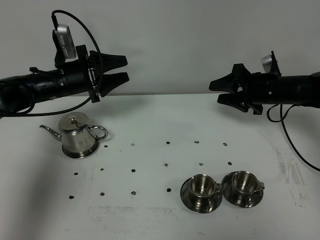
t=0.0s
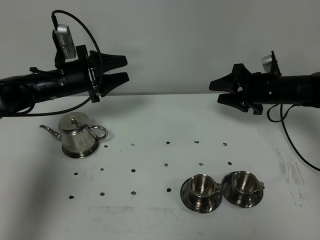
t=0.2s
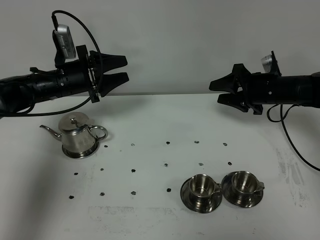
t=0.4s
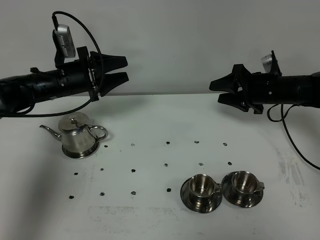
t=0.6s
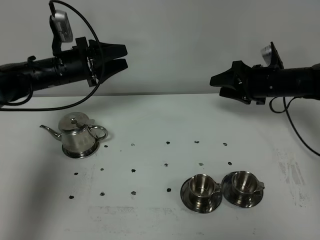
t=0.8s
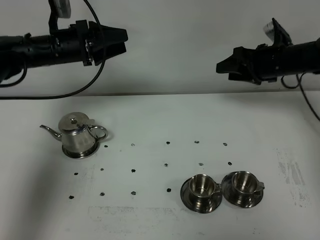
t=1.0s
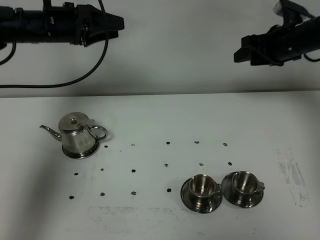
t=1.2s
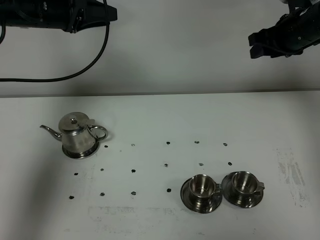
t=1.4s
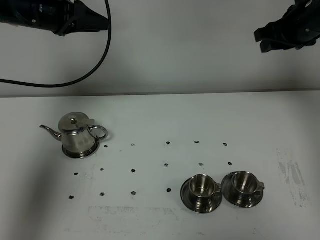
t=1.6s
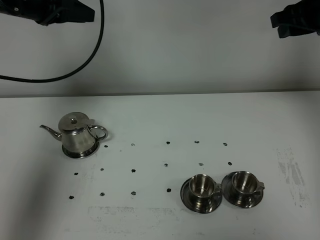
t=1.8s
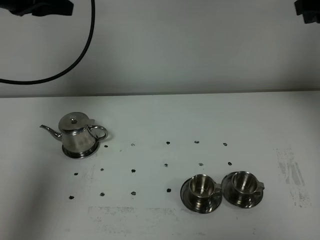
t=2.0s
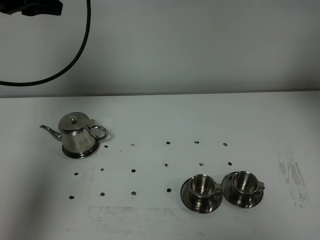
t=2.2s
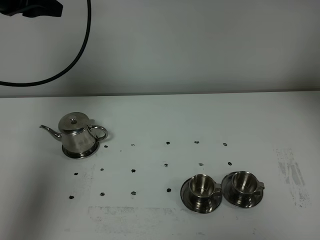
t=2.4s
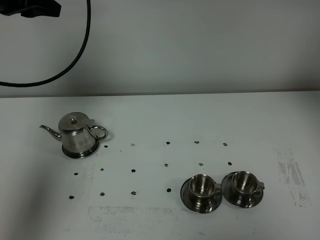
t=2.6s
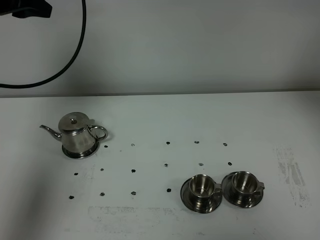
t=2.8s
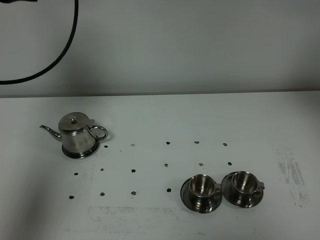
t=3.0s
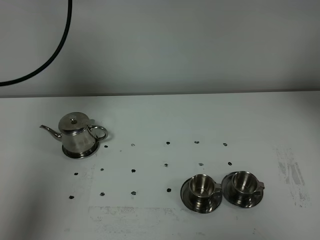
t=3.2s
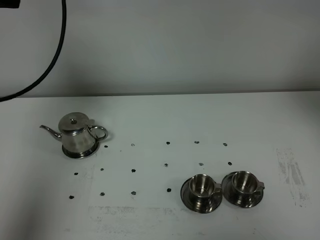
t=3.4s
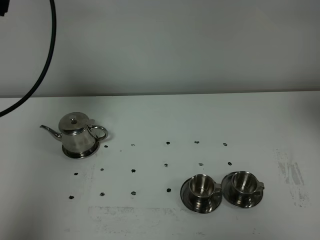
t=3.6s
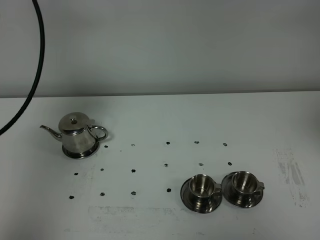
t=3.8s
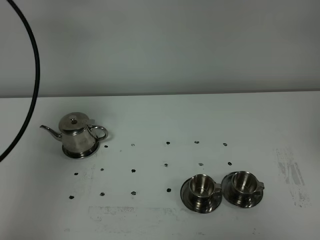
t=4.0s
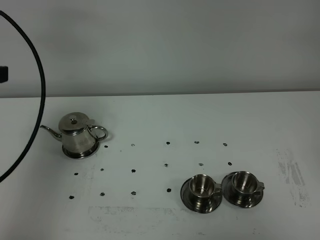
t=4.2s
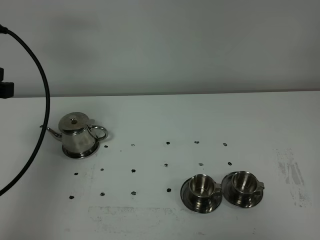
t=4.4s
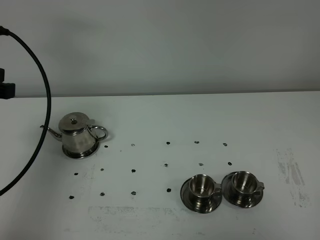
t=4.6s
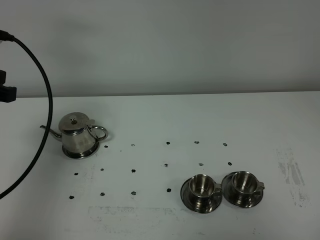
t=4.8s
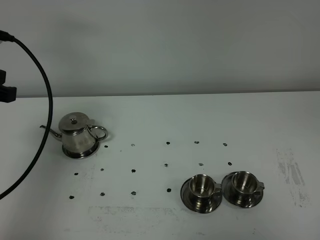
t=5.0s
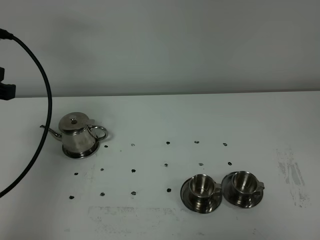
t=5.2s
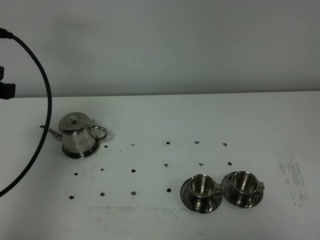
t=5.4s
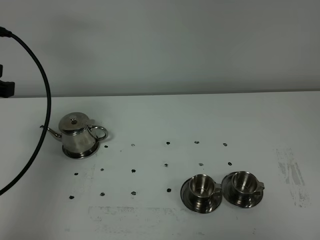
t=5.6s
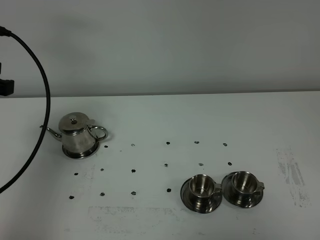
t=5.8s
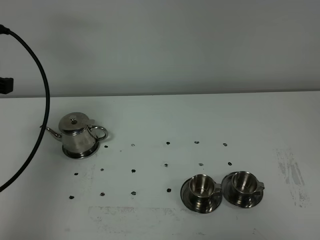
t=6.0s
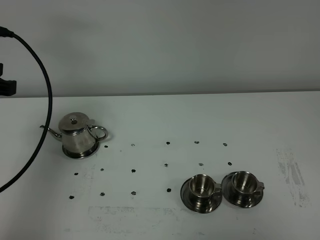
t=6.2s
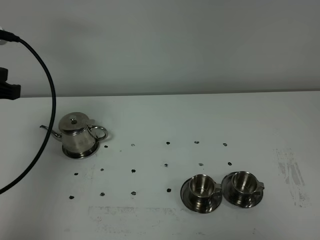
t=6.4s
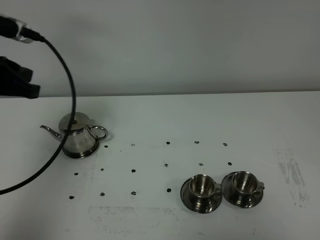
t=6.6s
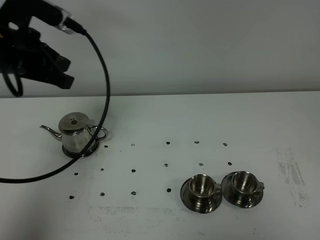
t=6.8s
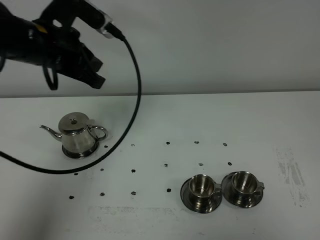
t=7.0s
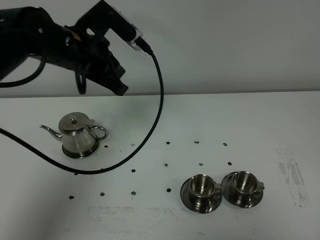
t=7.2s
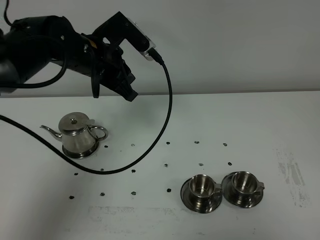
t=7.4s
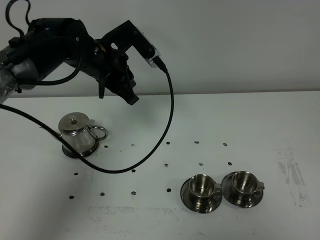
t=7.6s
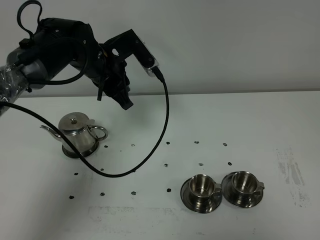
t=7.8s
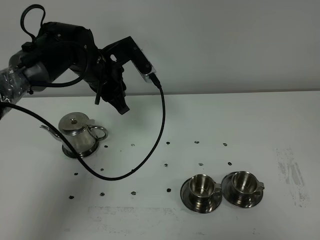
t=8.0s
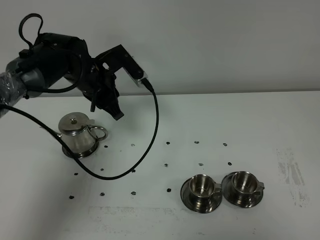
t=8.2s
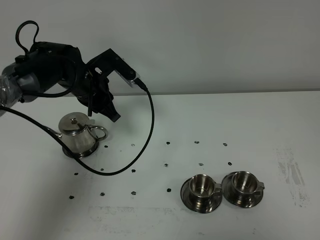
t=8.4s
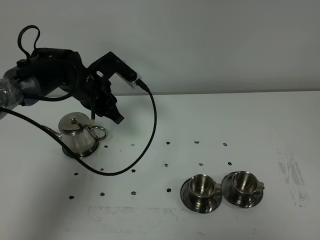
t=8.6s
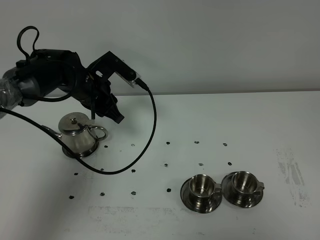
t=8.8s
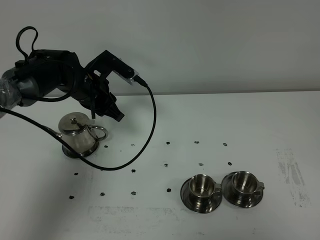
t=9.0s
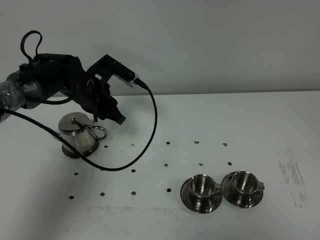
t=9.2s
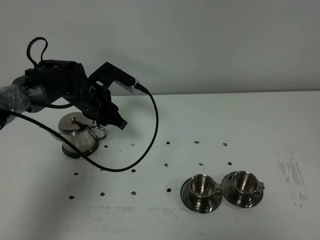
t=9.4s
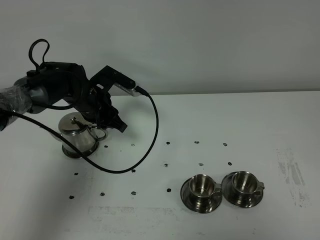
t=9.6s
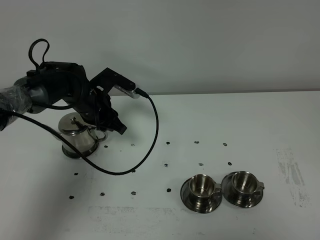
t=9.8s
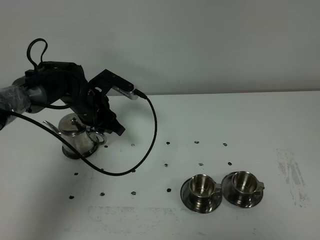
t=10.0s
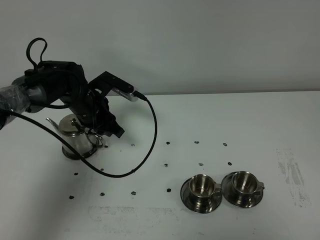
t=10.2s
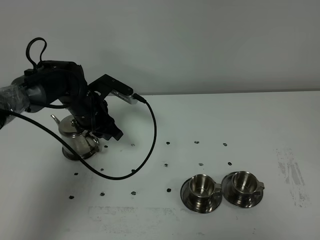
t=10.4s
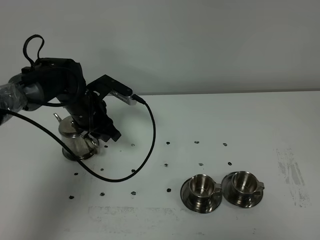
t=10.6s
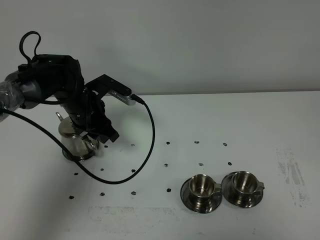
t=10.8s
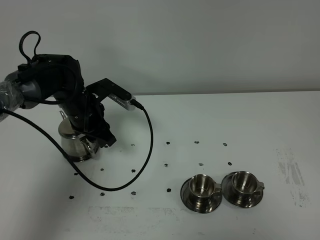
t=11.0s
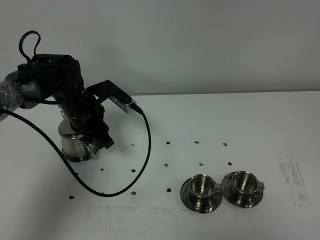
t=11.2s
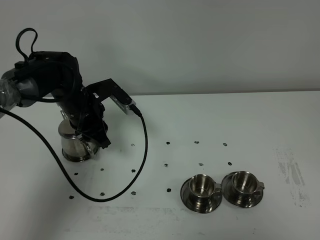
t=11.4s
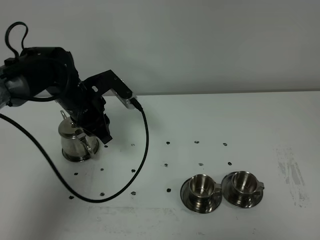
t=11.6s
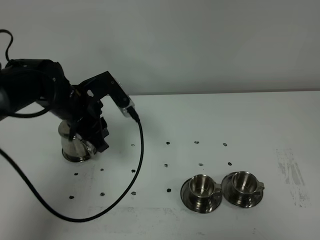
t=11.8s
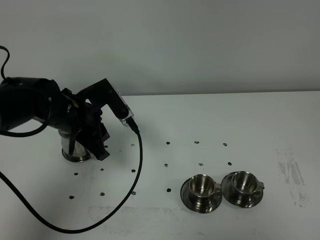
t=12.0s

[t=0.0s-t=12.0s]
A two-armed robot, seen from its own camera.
Task of the whole recording: grasp the stainless steel teapot and pour the tea into the two stainless steel teacups one by one, put the stainless steel teapot back in its original place.
t=0.0s to t=1.6s: Both grippers travel together upward, roughly 15 cm. The left gripper closes its fingers.
t=1.6s to t=3.0s: The right gripper heads backward and upward, covering about 20 cm. The left gripper moves upward and backward, about 15 cm.
t=3.0s to t=4.4s: The right gripper travels backward by some 25 cm, while the left gripper is displaced backward and downward by some 15 cm.
t=6.0s to t=7.6s: The left gripper is displaced to the right, forward and downward by some 25 cm. The right gripper closes up.
t=7.6s to t=9.0s: The left gripper is displaced downward by roughly 5 cm.
t=9.0s to t=10.4s: The grippers stay close to where they were, moving slightly.
t=10.4s to t=12.0s: The left gripper heads backward, covering about 10 cm.

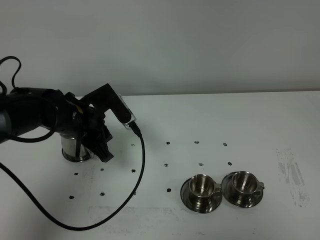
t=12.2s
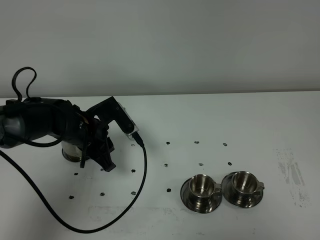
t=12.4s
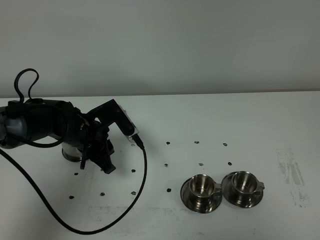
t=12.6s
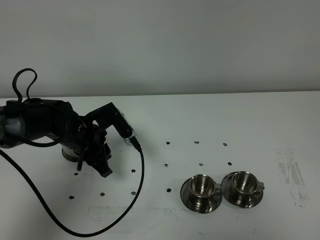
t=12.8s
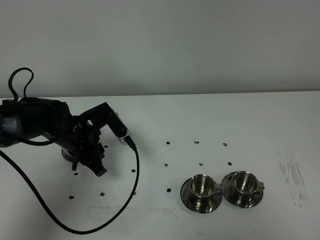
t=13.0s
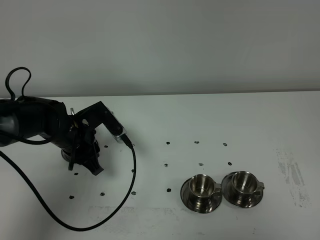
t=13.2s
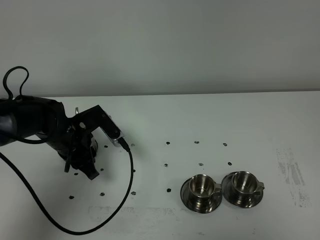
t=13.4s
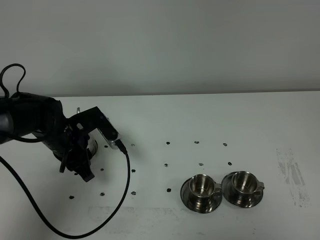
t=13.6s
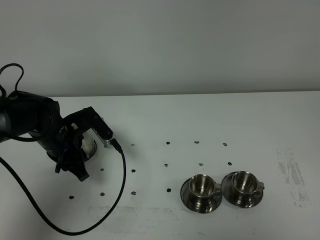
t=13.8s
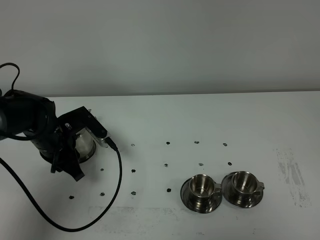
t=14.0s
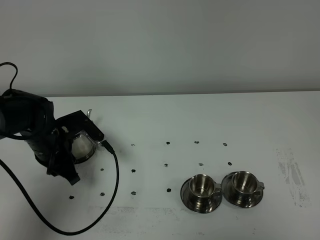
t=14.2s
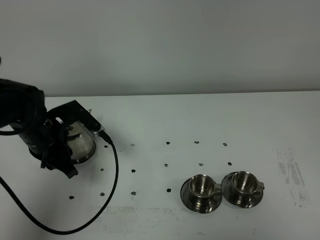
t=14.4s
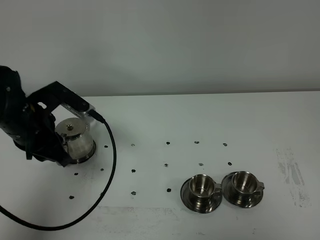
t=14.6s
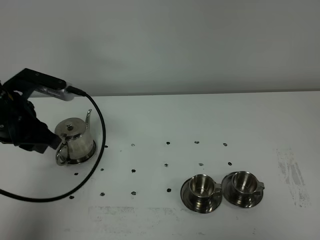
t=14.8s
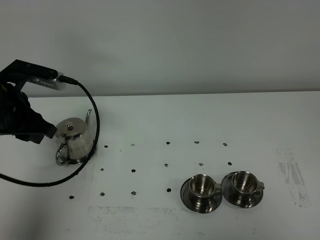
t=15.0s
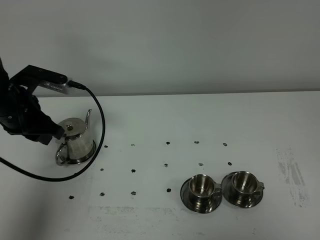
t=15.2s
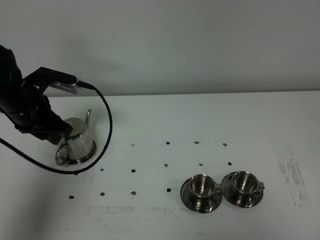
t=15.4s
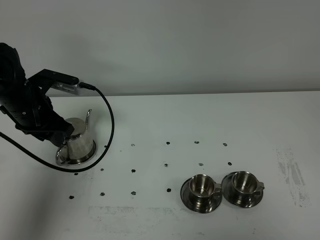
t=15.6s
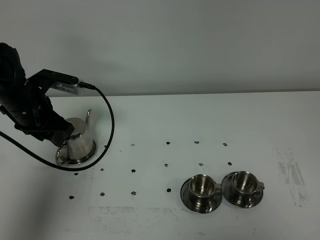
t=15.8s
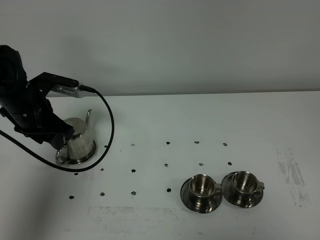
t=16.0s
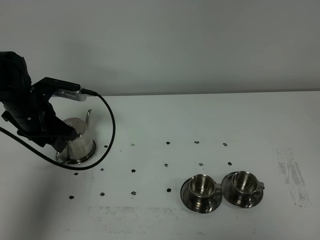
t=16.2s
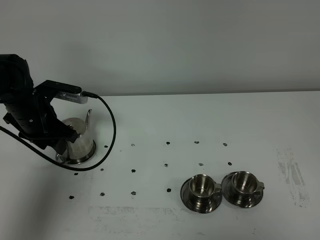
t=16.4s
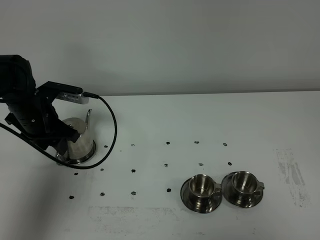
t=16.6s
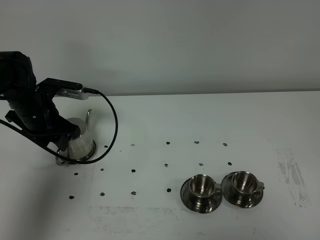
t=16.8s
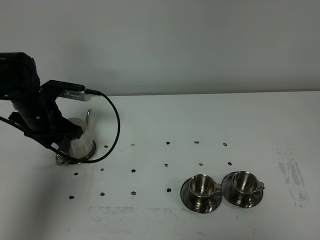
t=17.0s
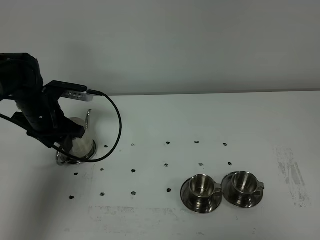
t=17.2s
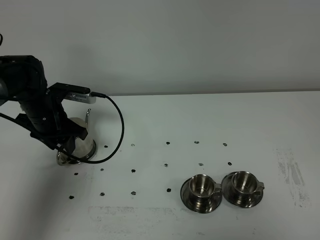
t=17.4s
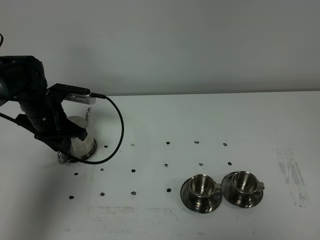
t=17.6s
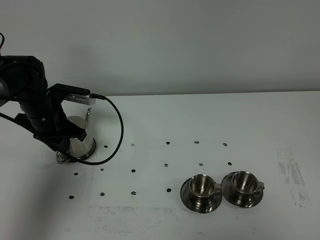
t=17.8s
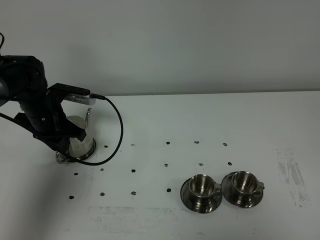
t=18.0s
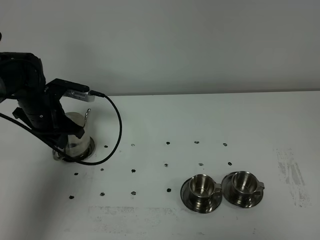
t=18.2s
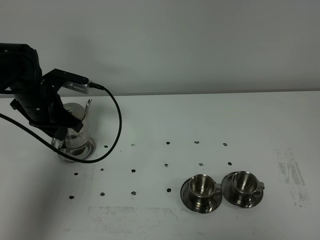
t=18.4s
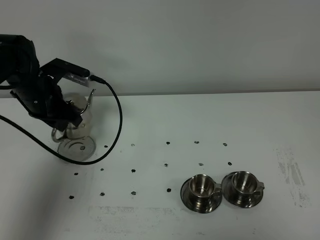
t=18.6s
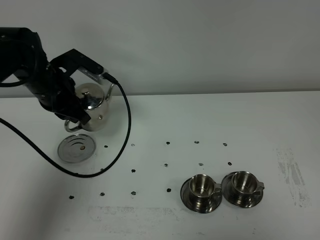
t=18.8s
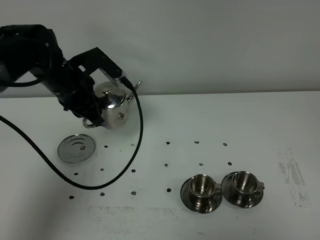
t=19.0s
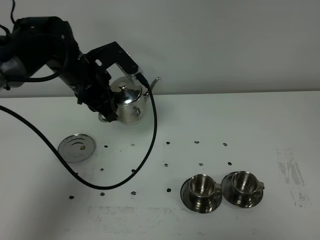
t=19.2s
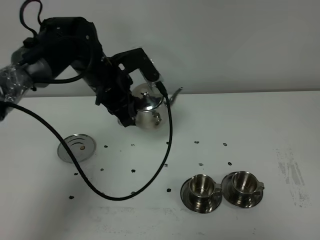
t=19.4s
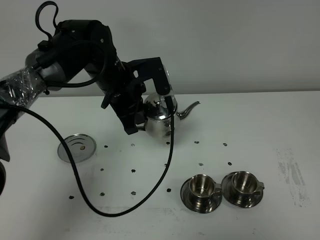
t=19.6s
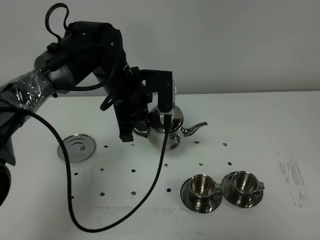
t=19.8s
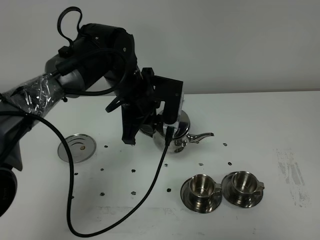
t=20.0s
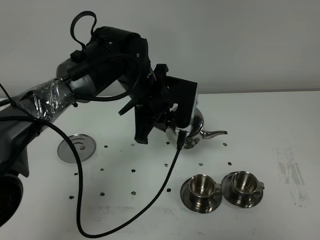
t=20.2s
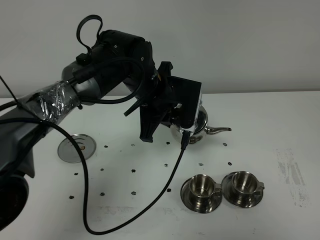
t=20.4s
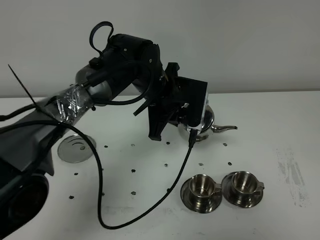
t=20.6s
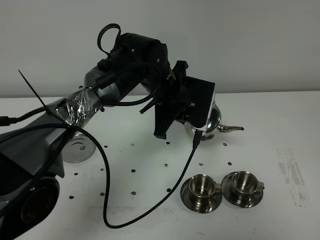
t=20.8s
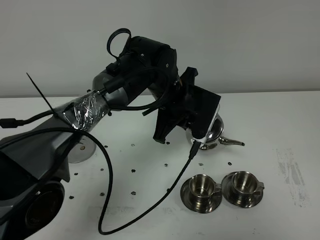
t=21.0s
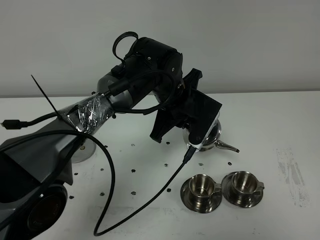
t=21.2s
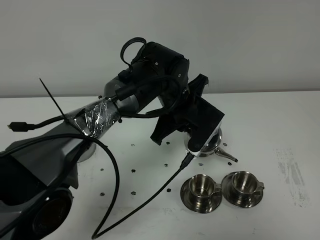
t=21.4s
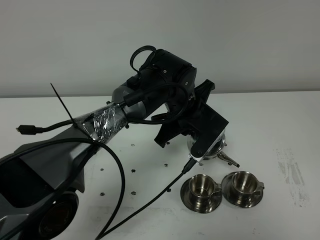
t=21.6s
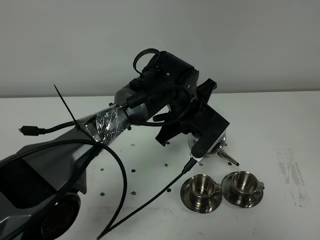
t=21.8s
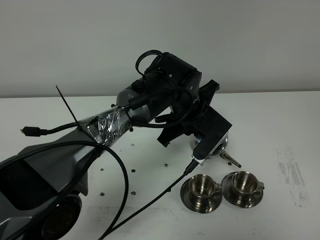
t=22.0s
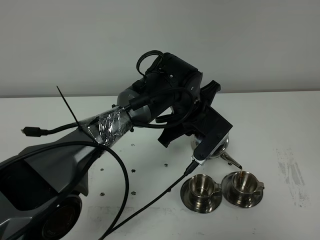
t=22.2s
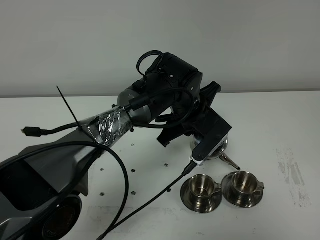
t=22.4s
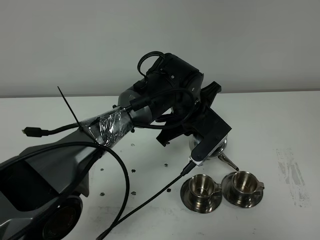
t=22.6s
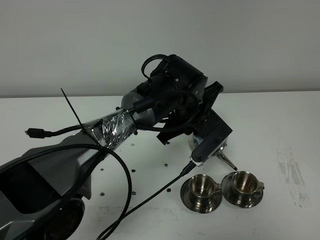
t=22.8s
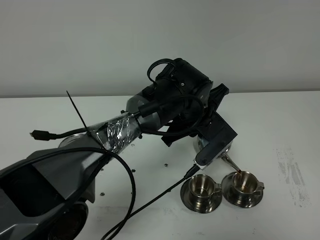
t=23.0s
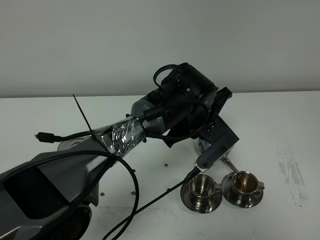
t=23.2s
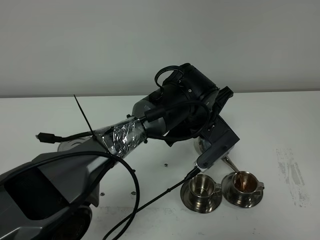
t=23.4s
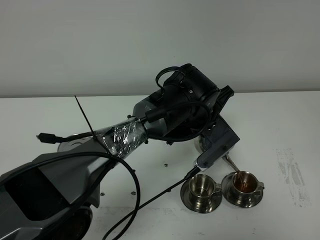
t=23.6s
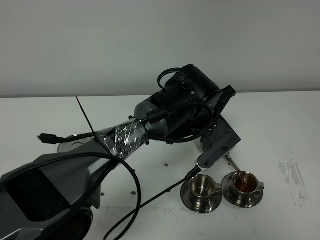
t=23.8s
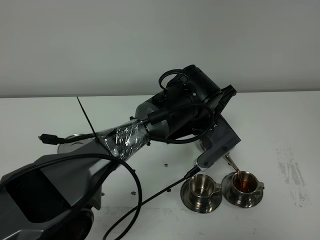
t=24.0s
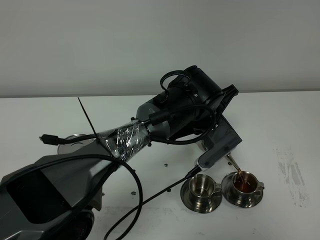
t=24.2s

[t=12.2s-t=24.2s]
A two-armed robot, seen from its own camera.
Task of the whole recording: grasp the stainless steel teapot and pour the tea into the two stainless steel teacups one by one, put the stainless steel teapot back in its original place.
Step, t=12.2s to t=18.4s: Pick up the teapot with the left gripper.
t=12.2s to t=13.8s: The left gripper ends up approximately 5 cm from where it was.
t=13.8s to t=15.2s: The left gripper moves upward and to the left, about 10 cm.
t=15.2s to t=16.6s: The left gripper is displaced downward by some 5 cm, and opens up.
t=16.6s to t=18.2s: The left gripper closes.
t=18.2s to t=19.8s: The left gripper travels to the right by some 20 cm.
t=19.8s to t=21.2s: The left gripper is displaced to the right by roughly 10 cm.
t=22.6s to t=24.2s: There are only small adjustments of the grippers.
